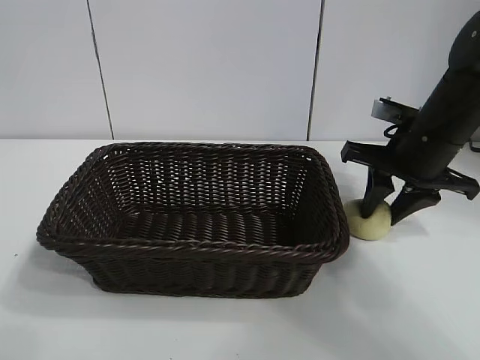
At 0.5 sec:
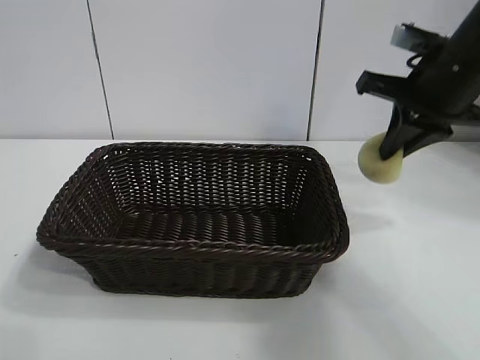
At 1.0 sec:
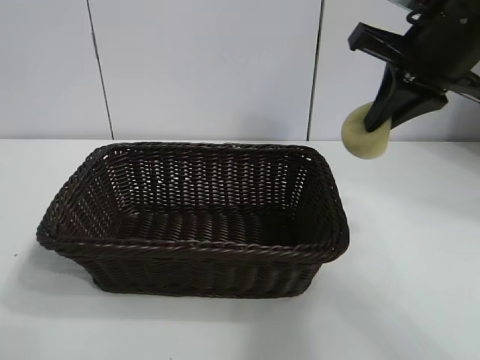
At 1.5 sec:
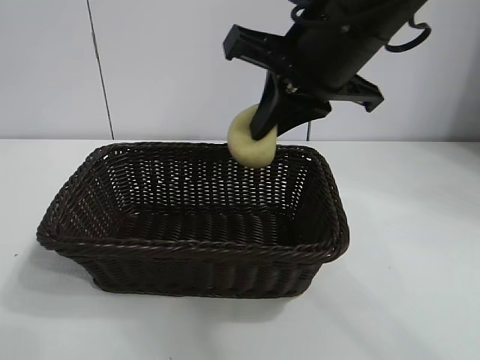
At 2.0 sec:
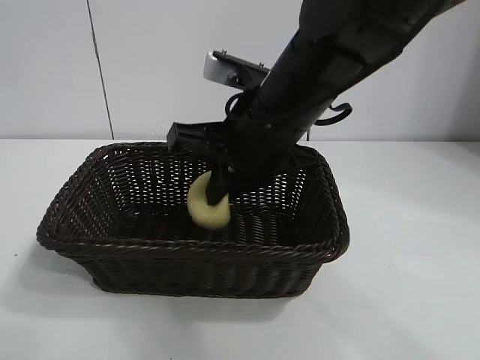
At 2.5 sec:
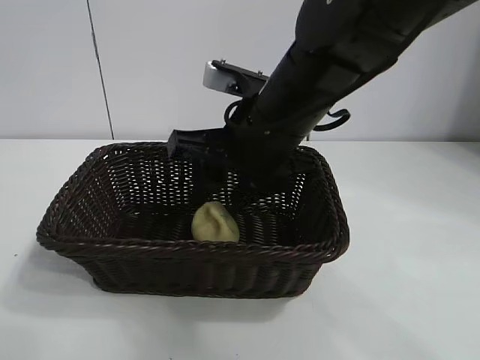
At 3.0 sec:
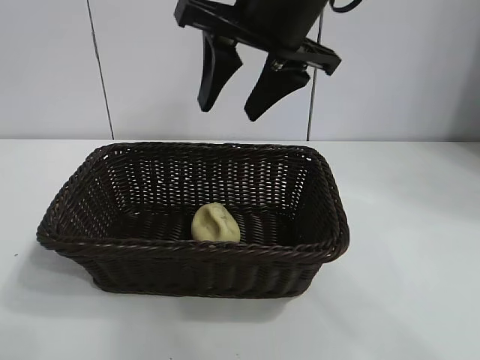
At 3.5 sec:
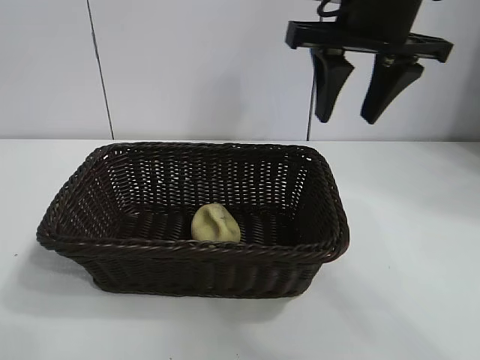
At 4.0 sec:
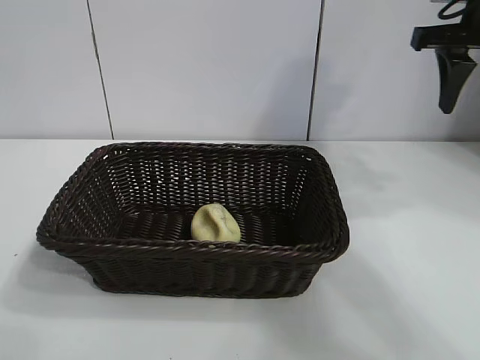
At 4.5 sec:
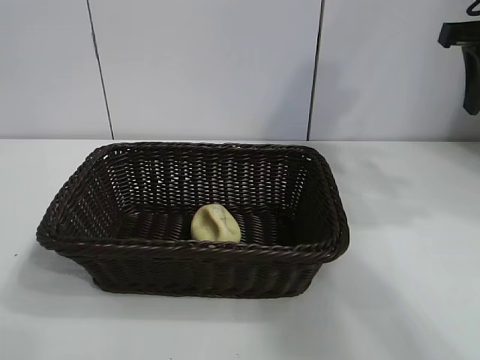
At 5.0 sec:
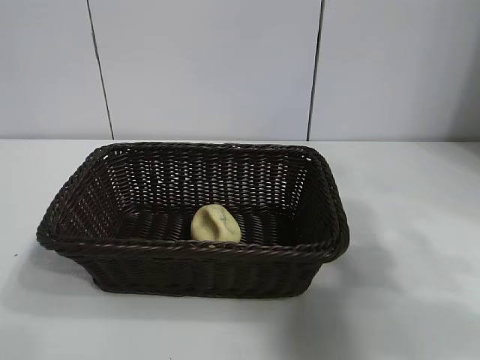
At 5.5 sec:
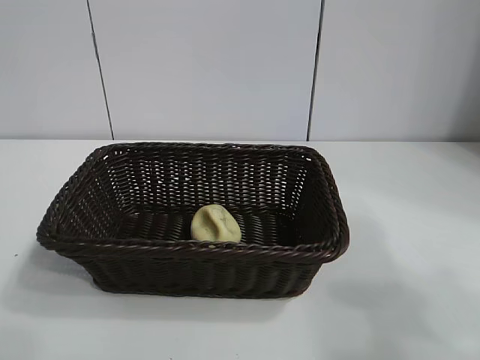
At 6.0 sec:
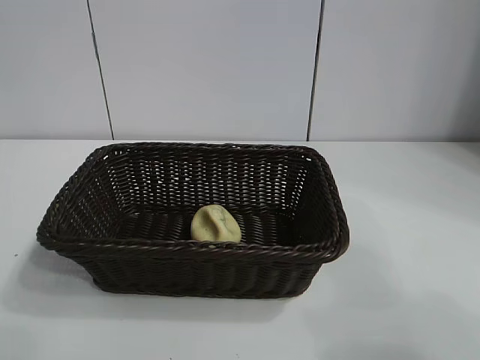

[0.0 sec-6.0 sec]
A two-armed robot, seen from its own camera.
Task of the whole recording: pick up the egg yolk pastry and put it into the basket.
Step, 0.5 sec to 2.5 sec: Place the egg yolk pastry in the basket with right gripper.

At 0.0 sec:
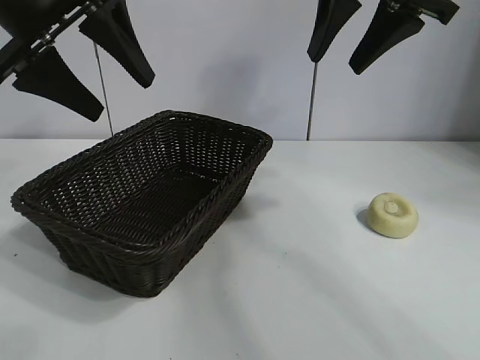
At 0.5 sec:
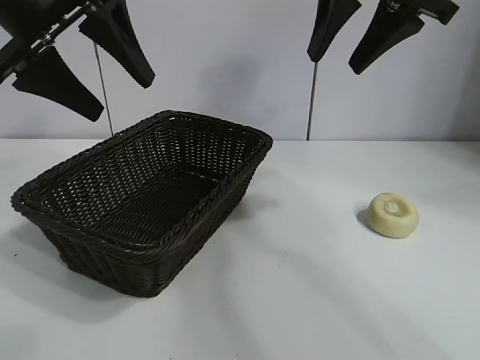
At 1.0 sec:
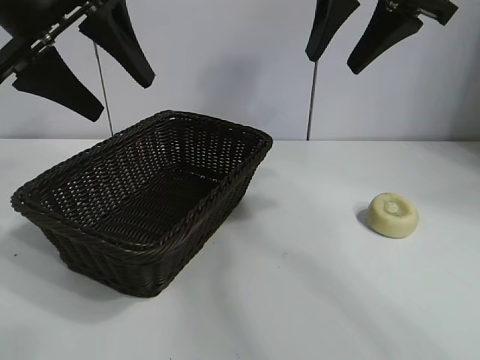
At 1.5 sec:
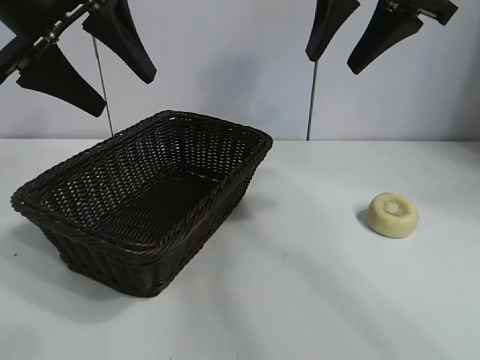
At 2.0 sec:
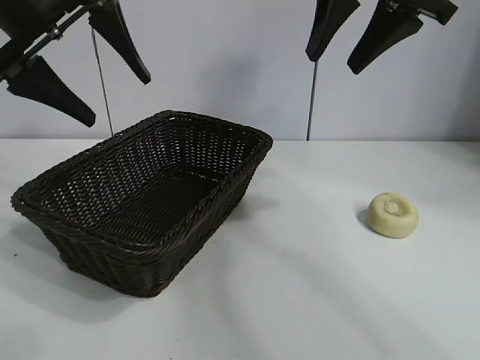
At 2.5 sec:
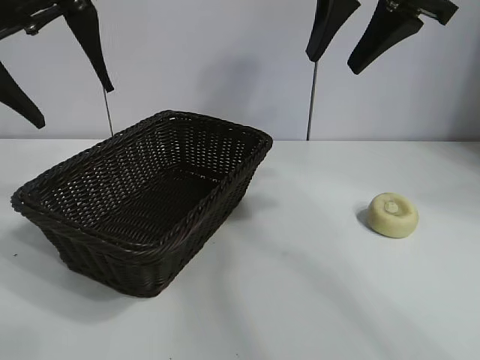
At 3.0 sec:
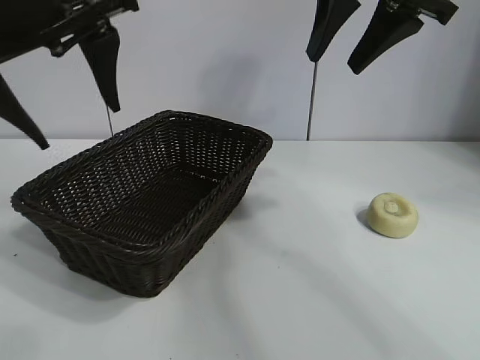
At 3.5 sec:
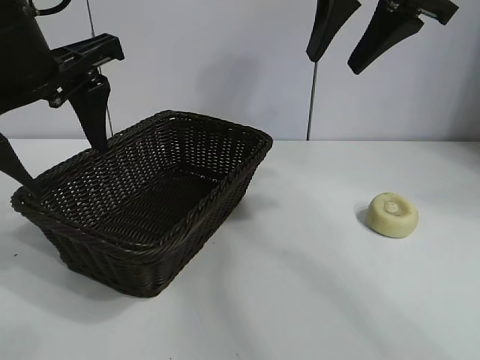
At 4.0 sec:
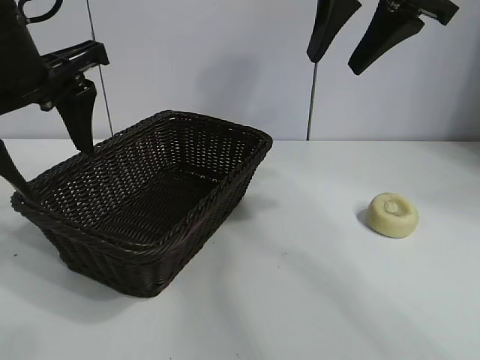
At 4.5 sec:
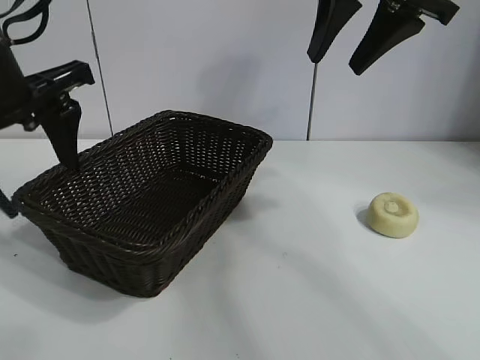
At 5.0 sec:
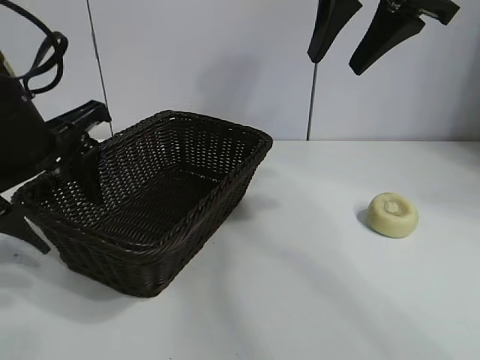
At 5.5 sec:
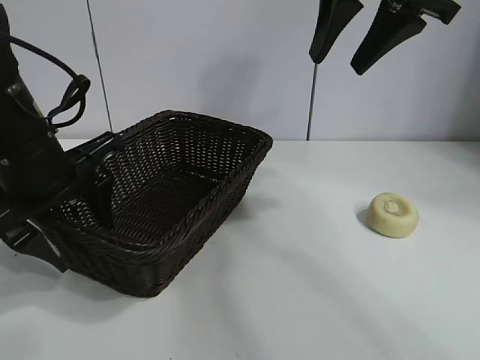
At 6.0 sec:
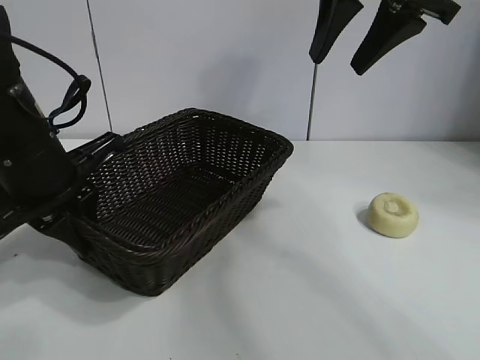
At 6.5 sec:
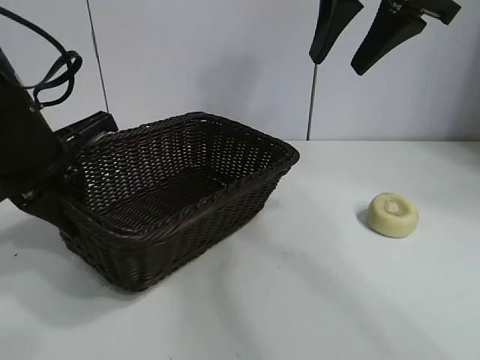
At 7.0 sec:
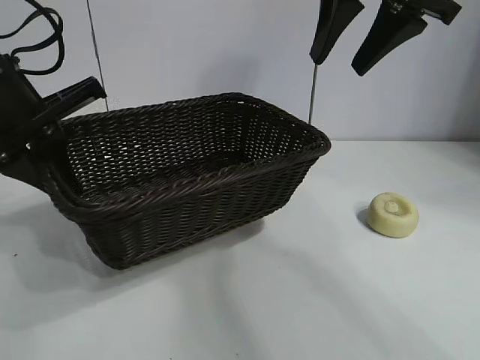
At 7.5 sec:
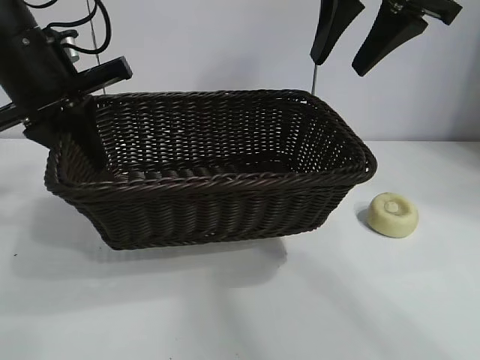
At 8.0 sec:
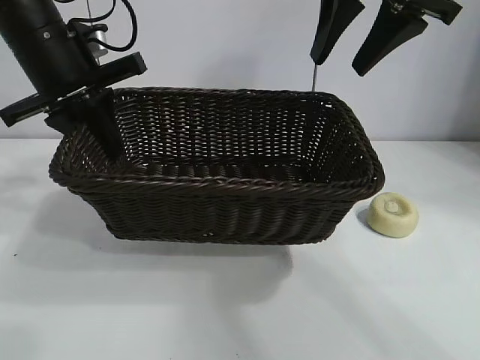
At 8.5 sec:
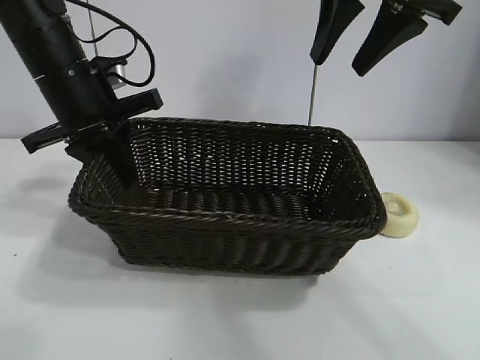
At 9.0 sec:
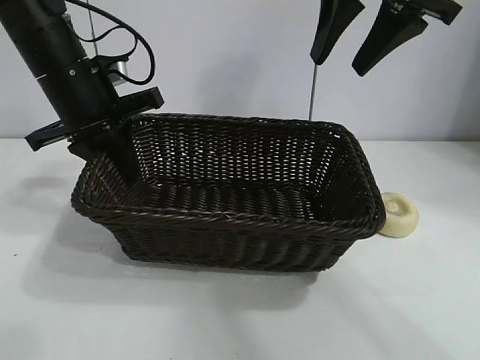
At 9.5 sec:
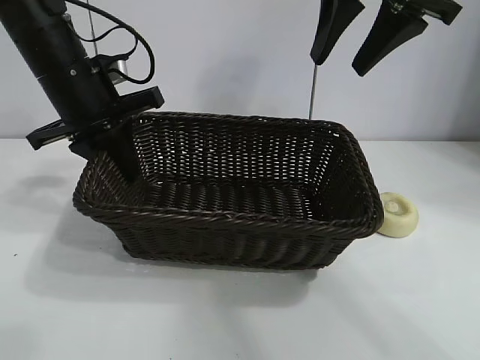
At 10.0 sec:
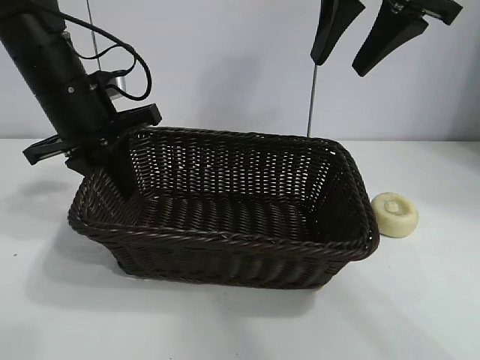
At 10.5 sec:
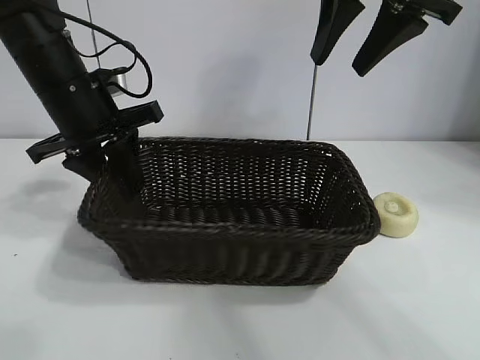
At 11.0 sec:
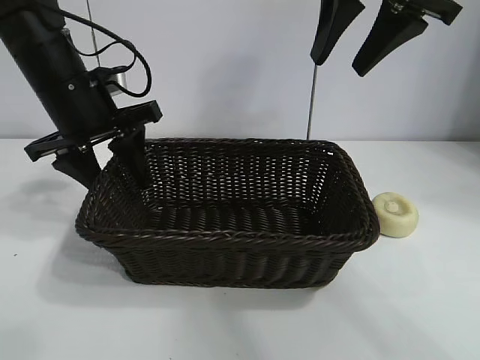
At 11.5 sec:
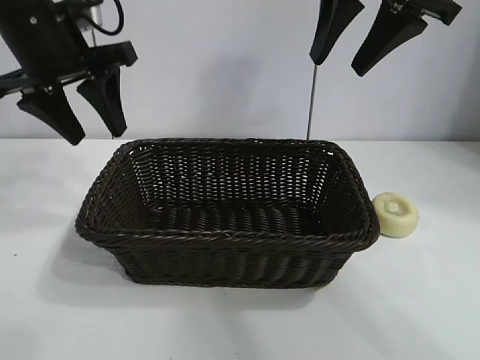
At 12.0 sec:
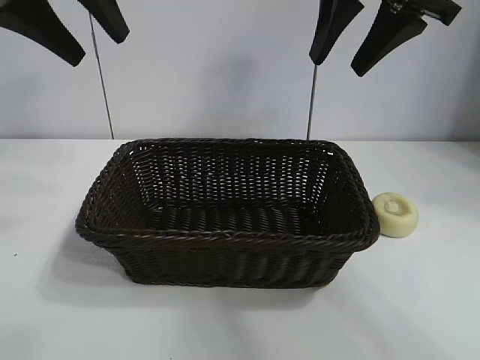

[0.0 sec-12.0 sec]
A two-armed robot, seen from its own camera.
Task of the whole recording: pick up the egg yolk pastry and put it into the basket.
Step, 1.0 sec to 5.5 sec: Grasp the basket with left gripper.
Step, 6.0 sec to 11.0 sec: Place the basket in the center of view with left gripper.

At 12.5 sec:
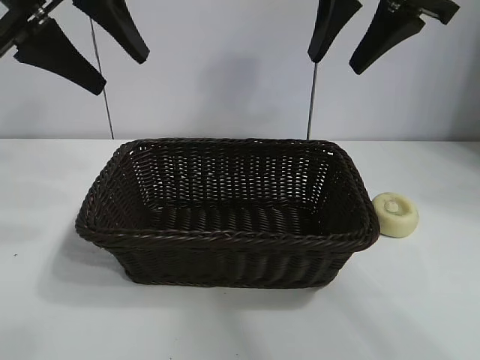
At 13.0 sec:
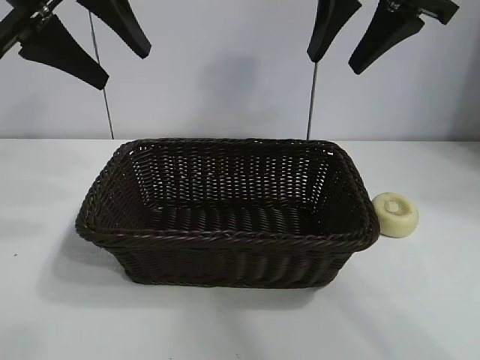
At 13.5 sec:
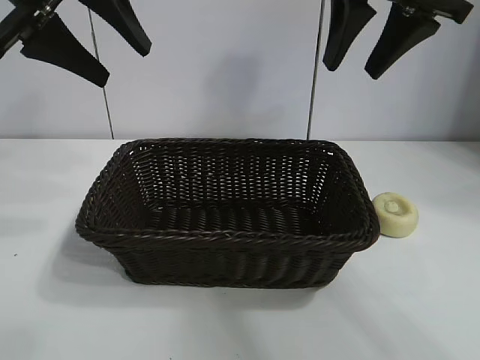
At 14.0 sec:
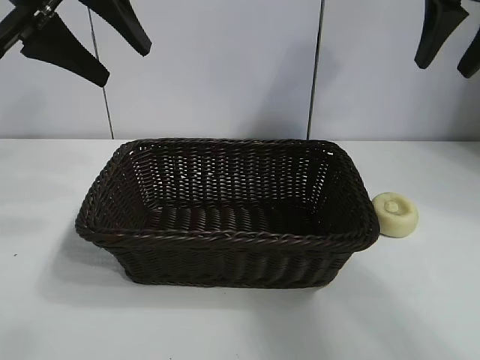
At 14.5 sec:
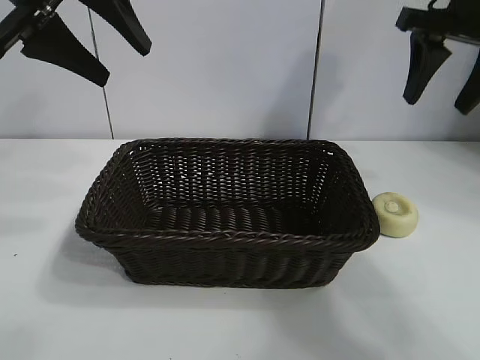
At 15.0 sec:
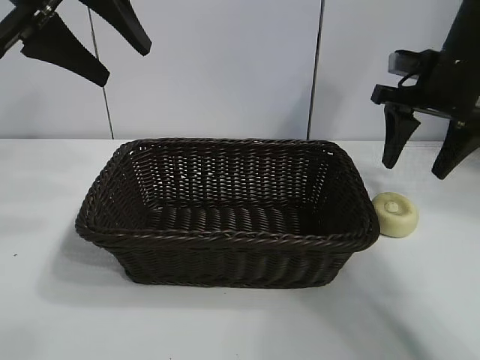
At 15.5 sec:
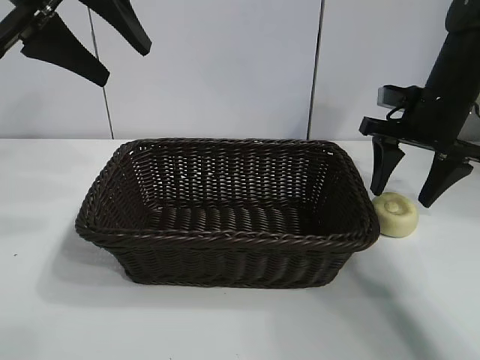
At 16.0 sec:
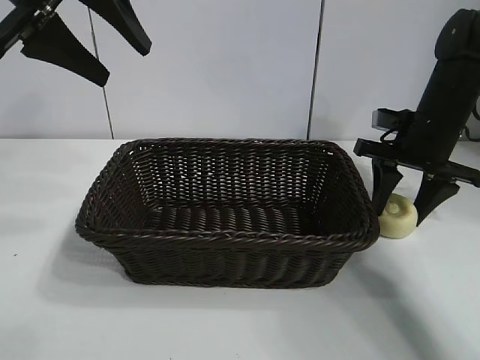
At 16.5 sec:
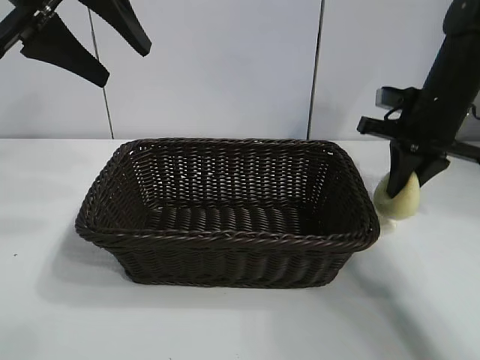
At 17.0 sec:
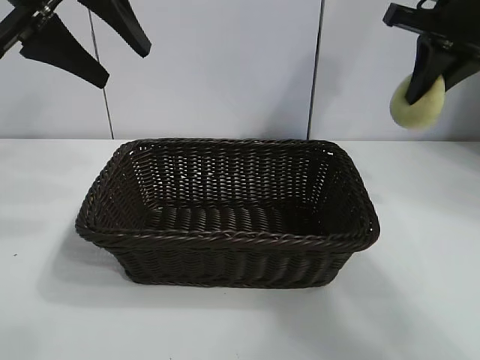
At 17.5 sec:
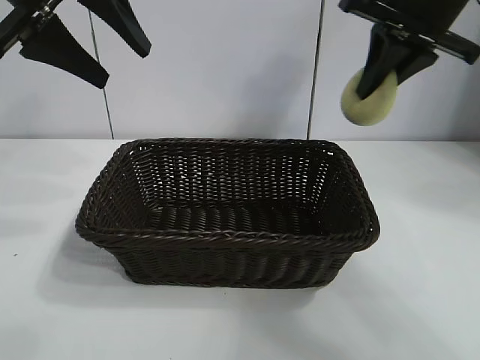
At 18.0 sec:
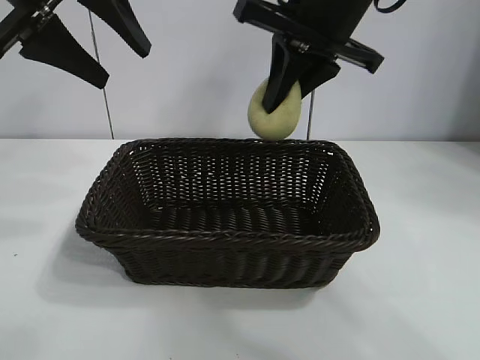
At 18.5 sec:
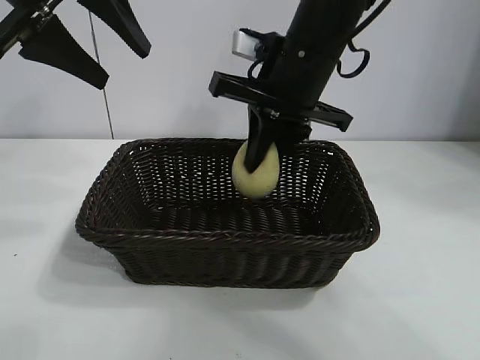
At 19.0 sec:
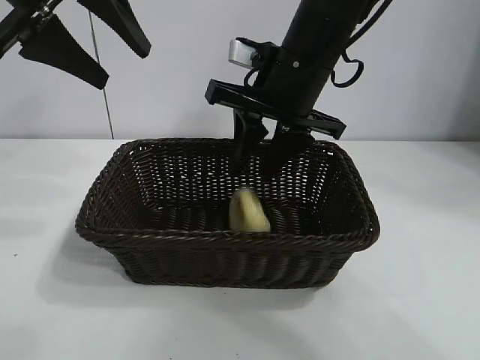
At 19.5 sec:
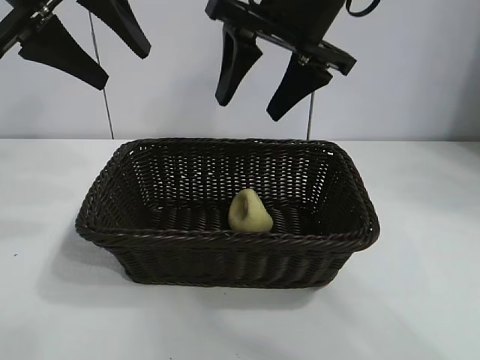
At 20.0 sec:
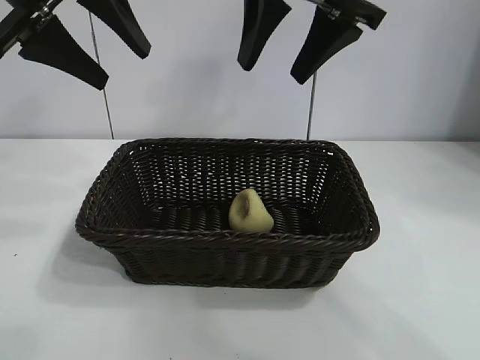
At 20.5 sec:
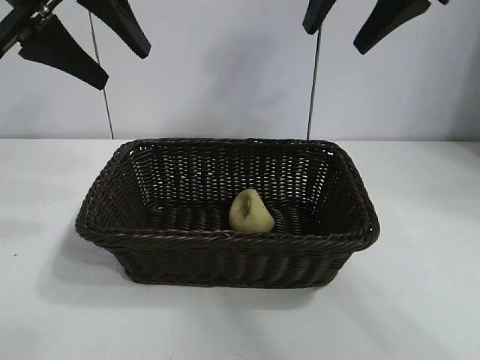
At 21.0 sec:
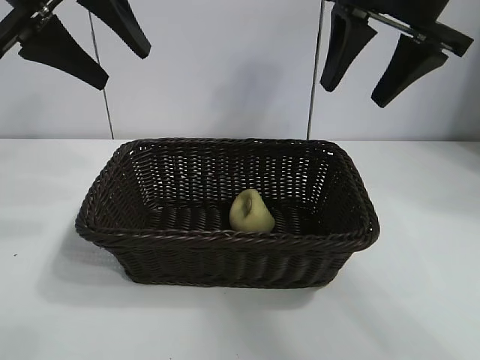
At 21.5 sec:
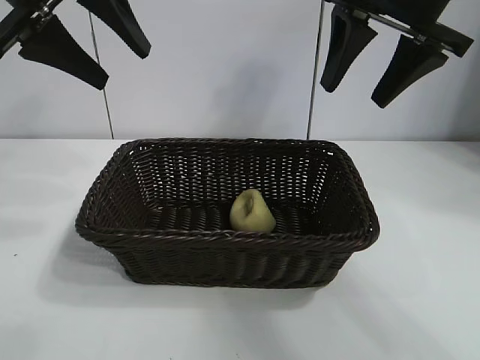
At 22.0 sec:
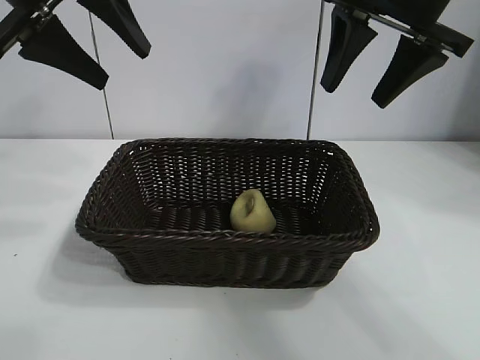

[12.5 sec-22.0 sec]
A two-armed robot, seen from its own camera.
Task of the whole recording: pick up the egg yolk pastry and put it into the basket.
Step, 12.5 sec to 16.0 sec: Grasp egg yolk pastry with right gripper.
Step, 16.5 sec to 19.0 sec: Place the egg yolk pastry in the basket with right gripper.
